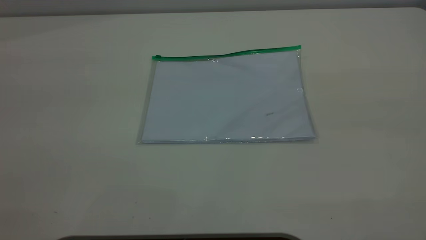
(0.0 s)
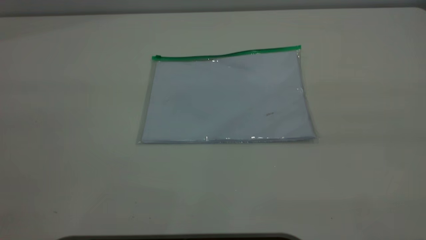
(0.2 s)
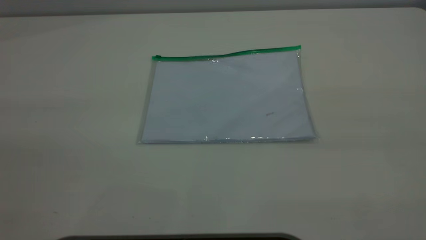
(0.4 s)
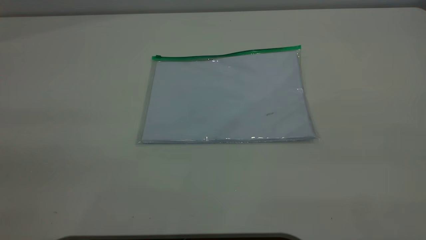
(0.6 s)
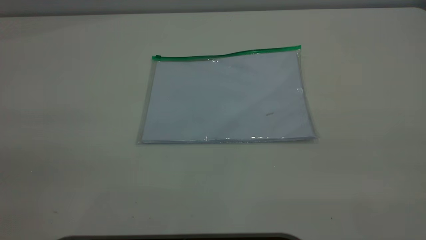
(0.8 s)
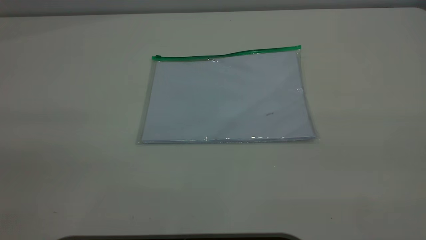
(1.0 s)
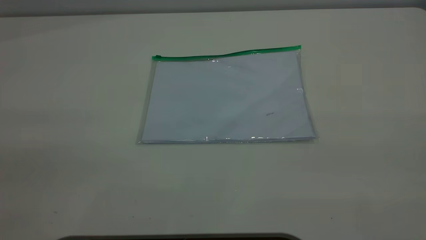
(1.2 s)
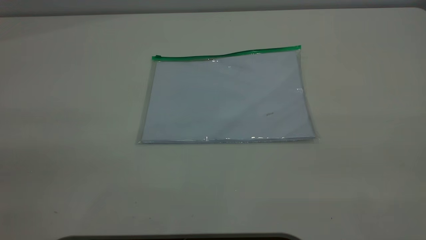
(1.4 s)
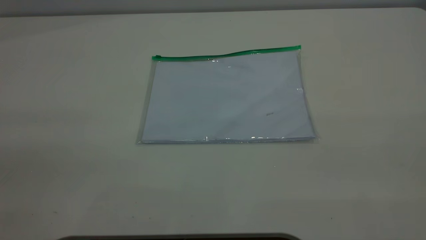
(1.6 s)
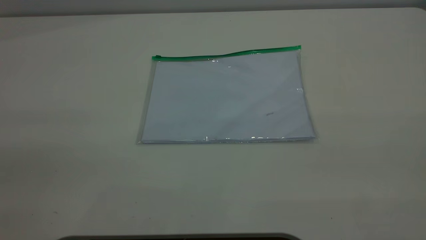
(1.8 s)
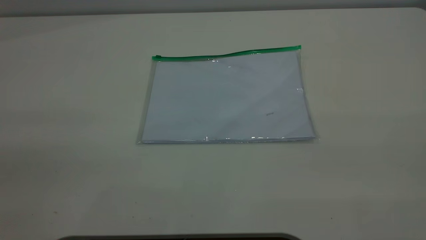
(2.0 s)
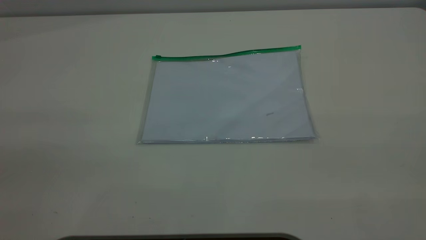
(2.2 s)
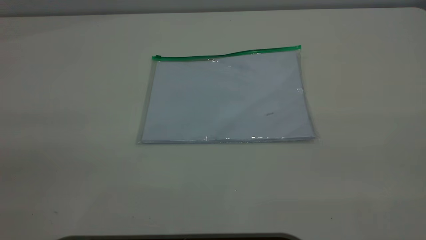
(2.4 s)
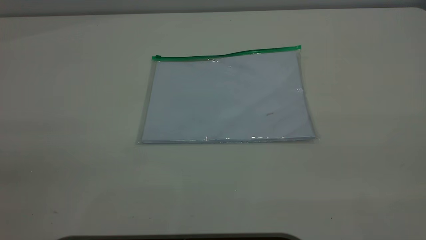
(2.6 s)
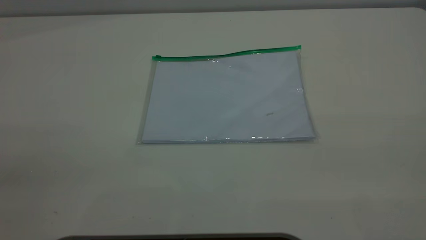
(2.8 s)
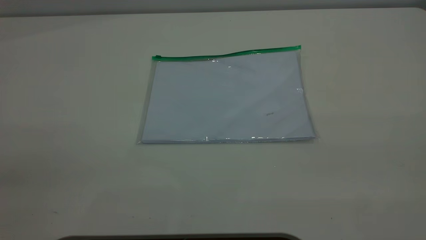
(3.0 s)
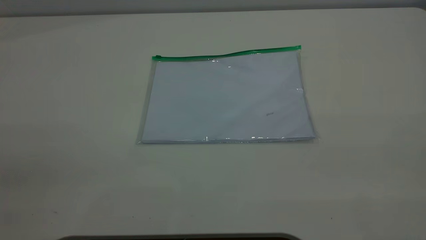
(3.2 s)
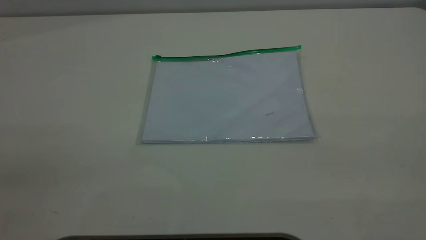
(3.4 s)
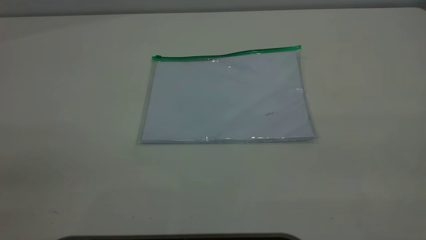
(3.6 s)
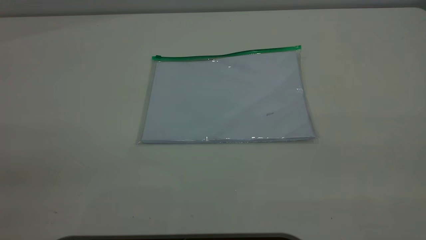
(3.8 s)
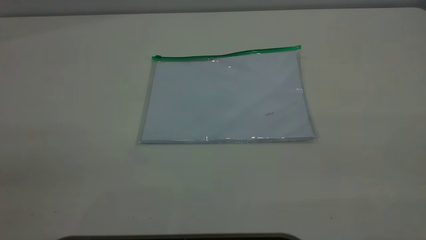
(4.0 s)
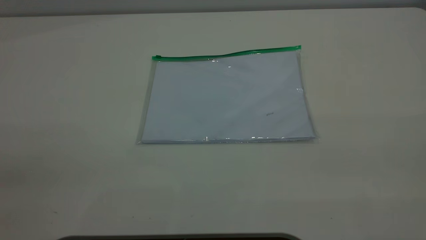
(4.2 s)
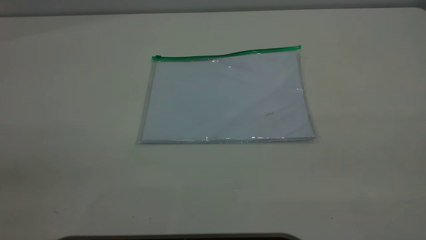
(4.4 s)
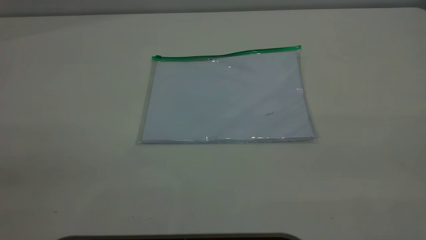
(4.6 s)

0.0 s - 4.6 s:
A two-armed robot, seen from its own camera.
3.0 s - 4.6 s: Both grippers stay about where they are.
